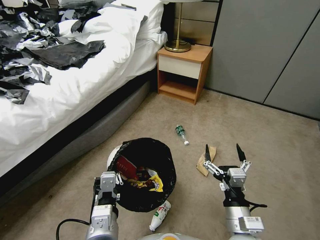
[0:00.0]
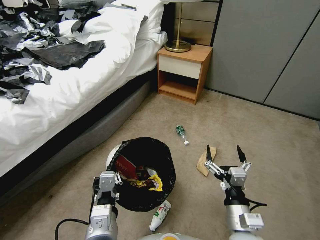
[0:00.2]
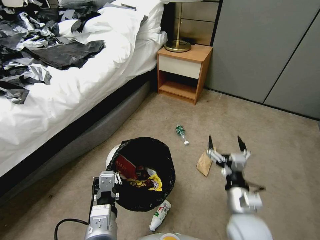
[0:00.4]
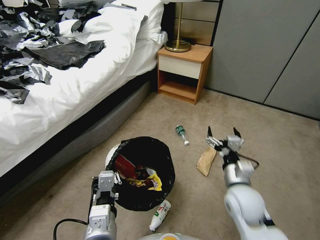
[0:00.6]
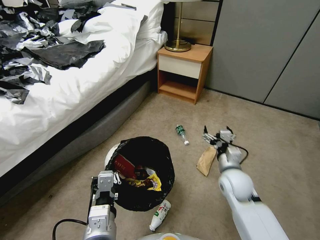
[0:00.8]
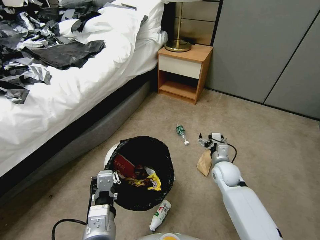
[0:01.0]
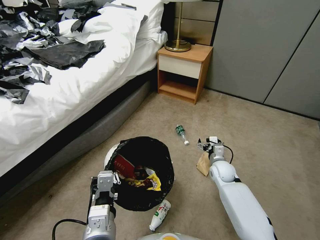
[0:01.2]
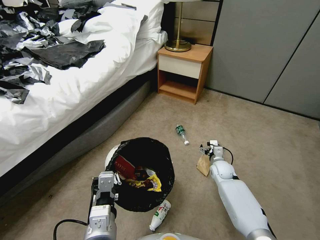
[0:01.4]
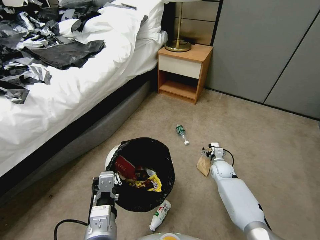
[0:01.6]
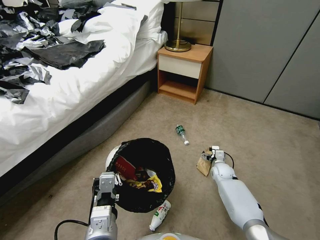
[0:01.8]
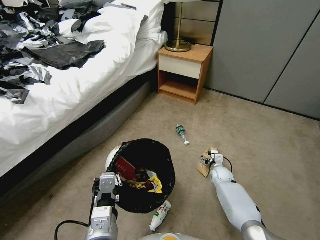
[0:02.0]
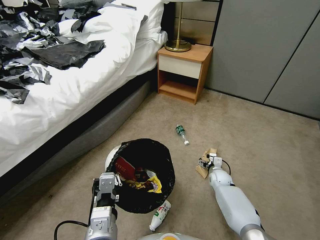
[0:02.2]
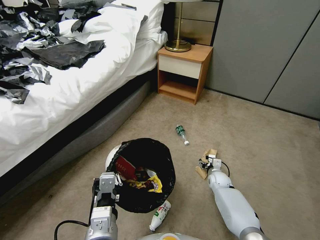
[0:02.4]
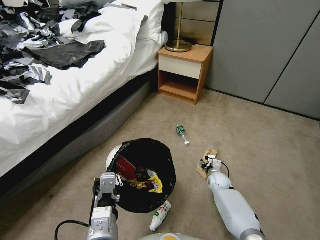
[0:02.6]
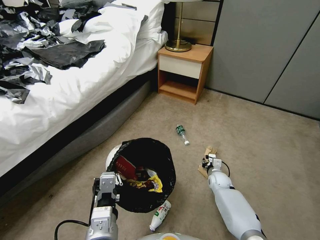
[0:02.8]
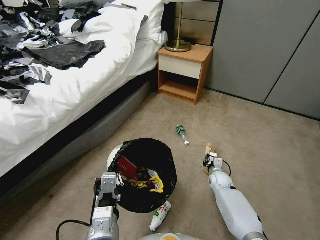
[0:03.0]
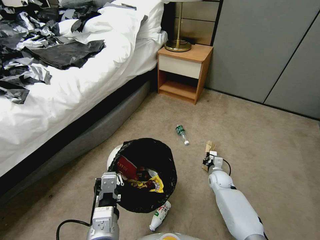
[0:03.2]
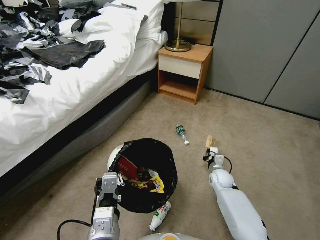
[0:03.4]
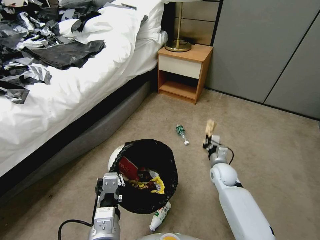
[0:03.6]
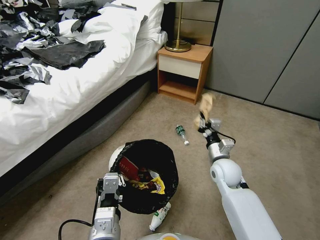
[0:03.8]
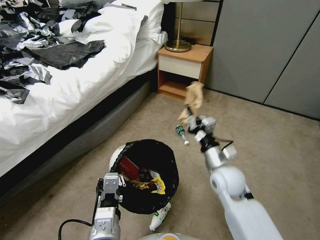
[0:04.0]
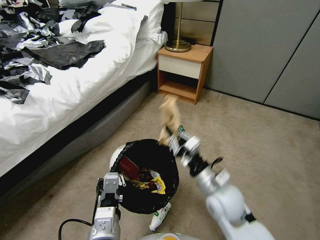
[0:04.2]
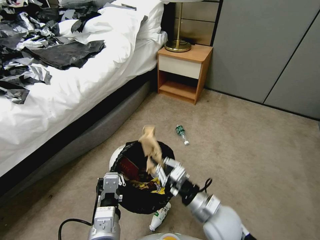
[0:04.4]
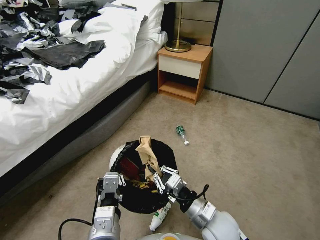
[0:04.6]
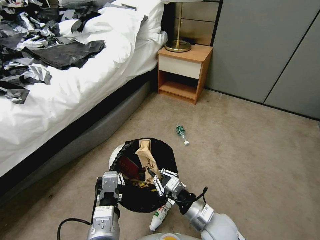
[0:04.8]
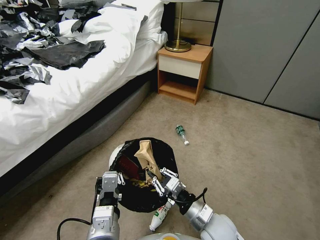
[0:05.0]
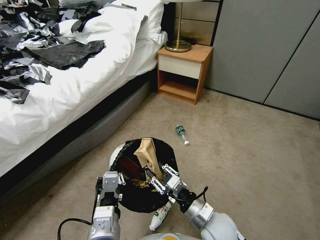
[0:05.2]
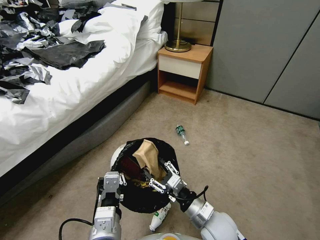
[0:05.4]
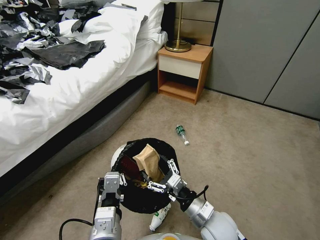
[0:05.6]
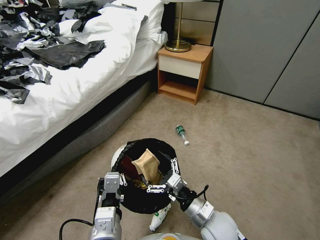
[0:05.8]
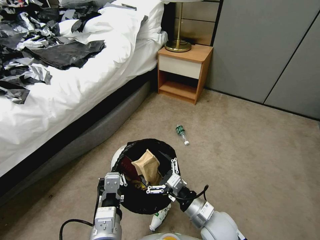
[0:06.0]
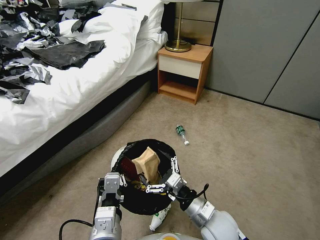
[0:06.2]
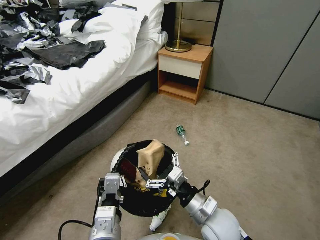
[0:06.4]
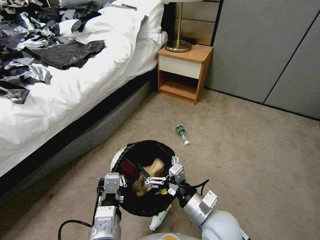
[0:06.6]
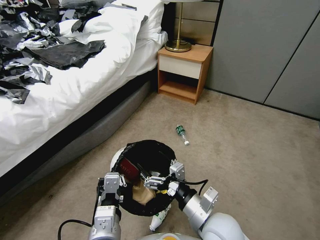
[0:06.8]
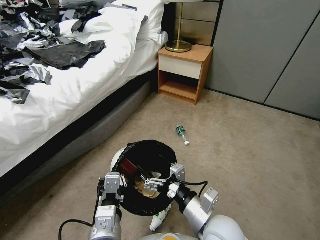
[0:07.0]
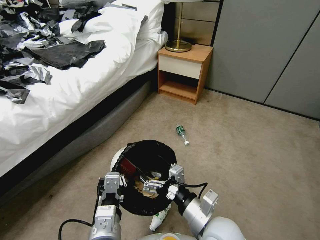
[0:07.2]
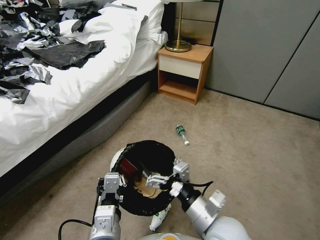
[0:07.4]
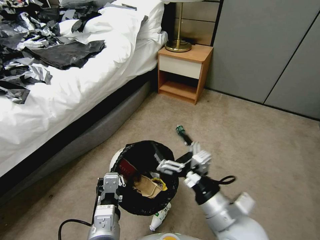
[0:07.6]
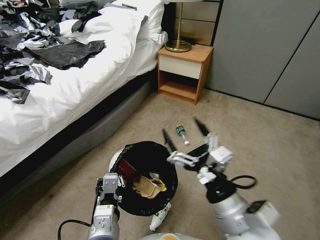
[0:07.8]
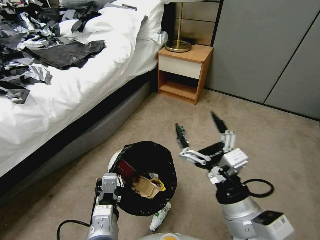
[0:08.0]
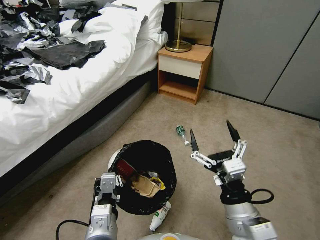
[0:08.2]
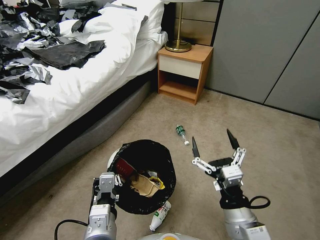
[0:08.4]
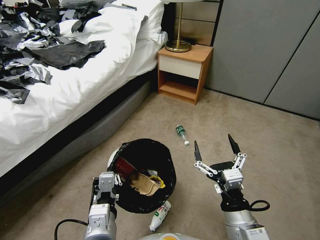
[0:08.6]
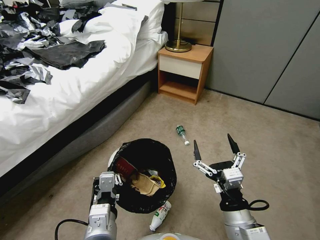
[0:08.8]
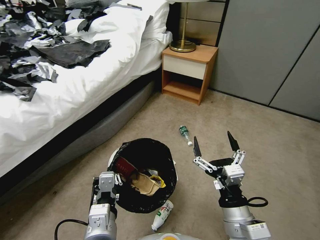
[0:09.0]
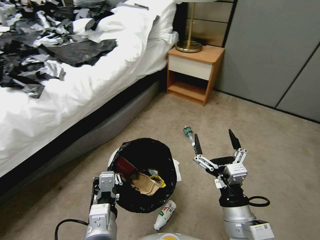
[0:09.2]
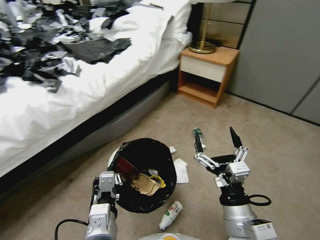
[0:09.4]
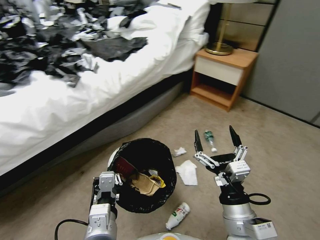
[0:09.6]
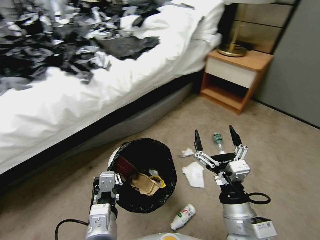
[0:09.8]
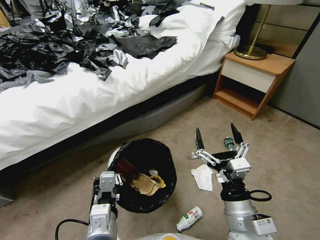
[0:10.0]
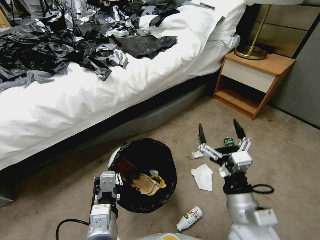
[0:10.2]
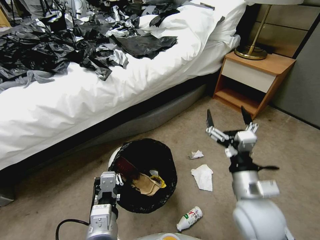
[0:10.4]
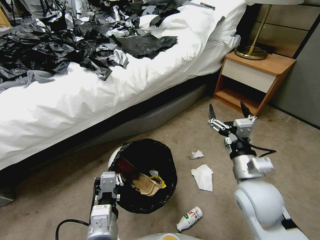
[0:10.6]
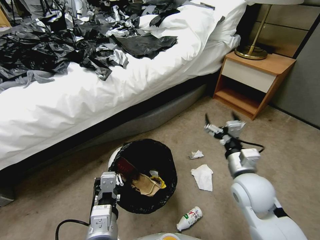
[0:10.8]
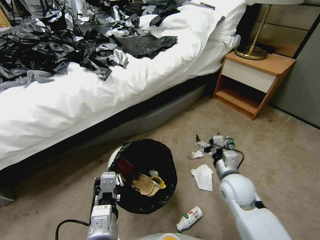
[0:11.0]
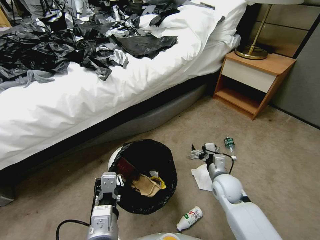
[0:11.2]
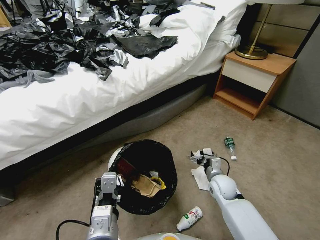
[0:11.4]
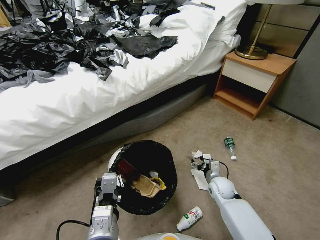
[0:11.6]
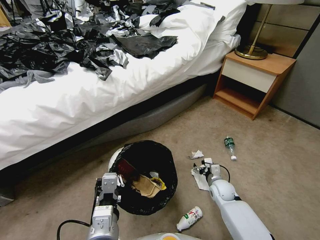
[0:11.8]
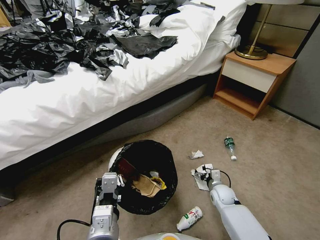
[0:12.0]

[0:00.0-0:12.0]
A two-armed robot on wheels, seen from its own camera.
Task of the whole recording: Pick up the trash bin, then pick up the garbage from the floor and place it into the trash bin.
0:00.0 to 0:01.6: The right gripper shifts about 35 cm forward and downward.
0:01.6 to 0:03.0: The right gripper closes its fingers.
0:03.0 to 0:04.4: The right gripper goes some 30 cm upward, backward and to the left.
0:04.4 to 0:06.0: The right gripper opens up.
0:06.0 to 0:07.6: The right gripper goes about 10 cm upward.
0:07.6 to 0:09.0: The right gripper moves roughly 5 cm.
0:09.0 to 0:10.4: The right gripper shifts roughly 5 cm forward.
0:10.4 to 0:12.0: The right gripper moves downward and forward, some 35 cm.

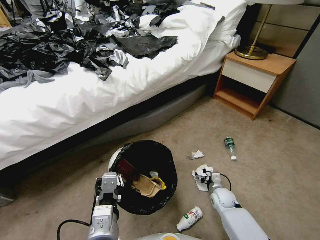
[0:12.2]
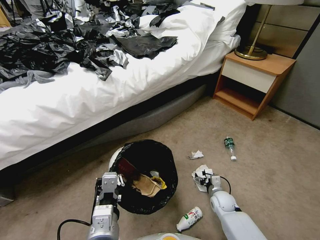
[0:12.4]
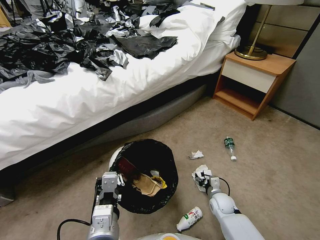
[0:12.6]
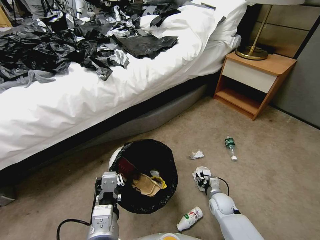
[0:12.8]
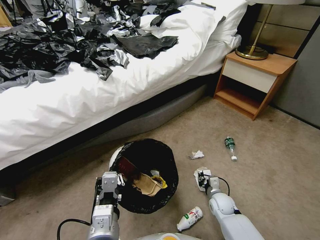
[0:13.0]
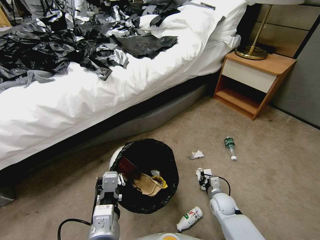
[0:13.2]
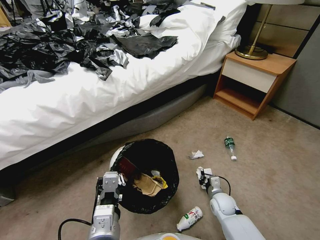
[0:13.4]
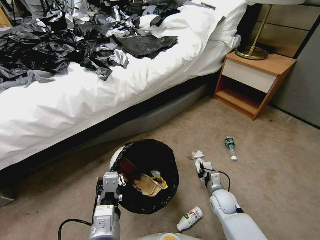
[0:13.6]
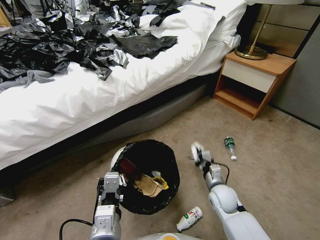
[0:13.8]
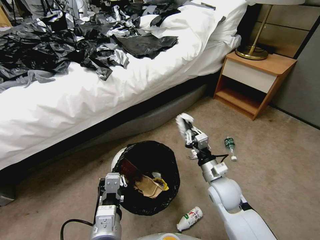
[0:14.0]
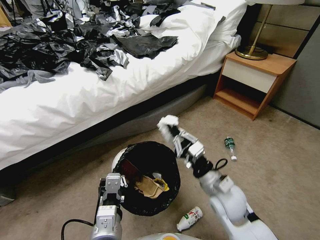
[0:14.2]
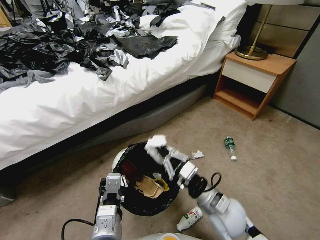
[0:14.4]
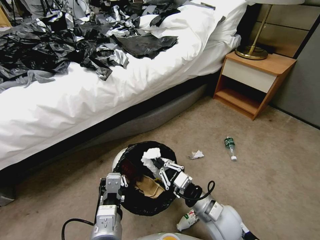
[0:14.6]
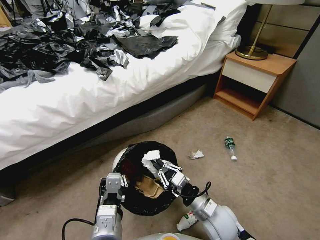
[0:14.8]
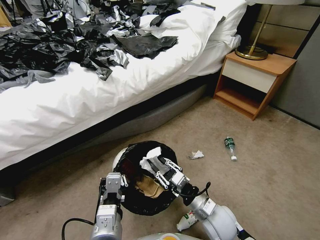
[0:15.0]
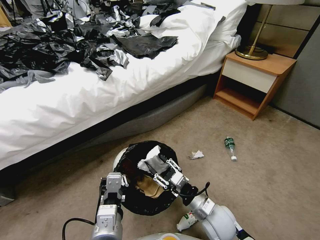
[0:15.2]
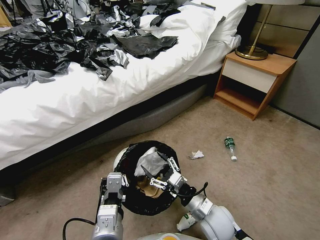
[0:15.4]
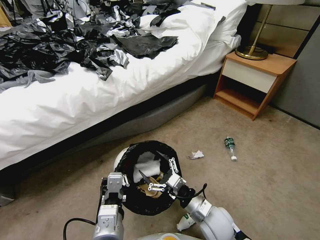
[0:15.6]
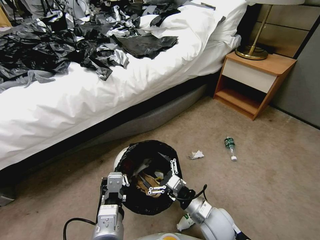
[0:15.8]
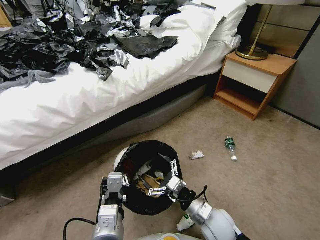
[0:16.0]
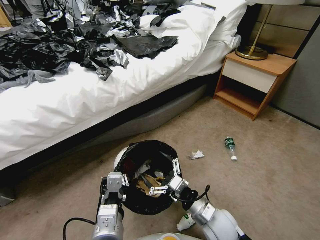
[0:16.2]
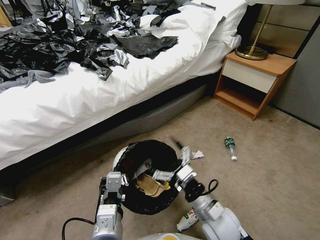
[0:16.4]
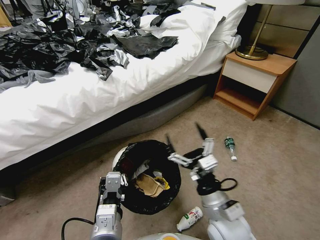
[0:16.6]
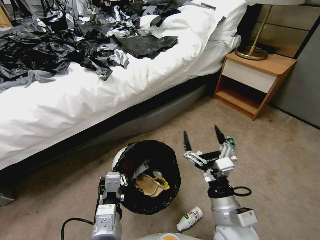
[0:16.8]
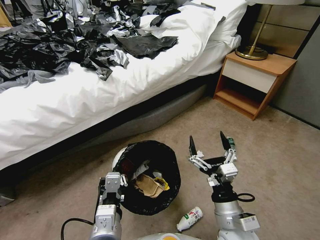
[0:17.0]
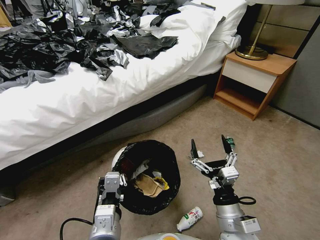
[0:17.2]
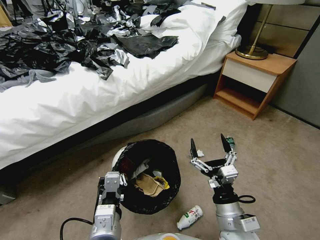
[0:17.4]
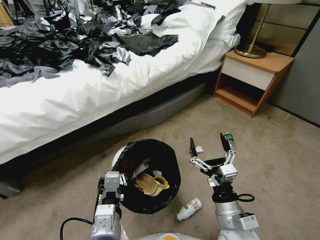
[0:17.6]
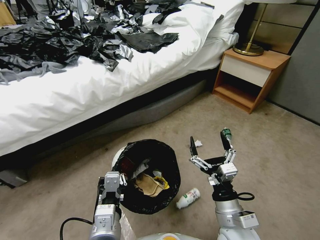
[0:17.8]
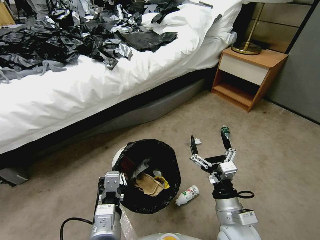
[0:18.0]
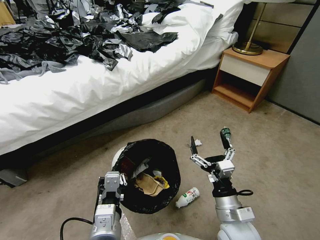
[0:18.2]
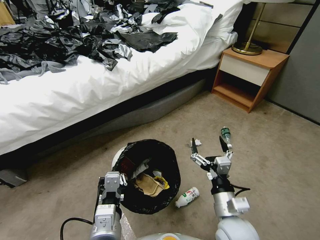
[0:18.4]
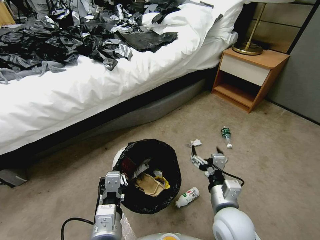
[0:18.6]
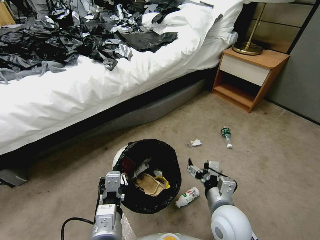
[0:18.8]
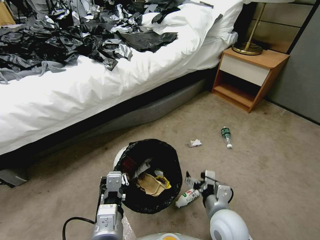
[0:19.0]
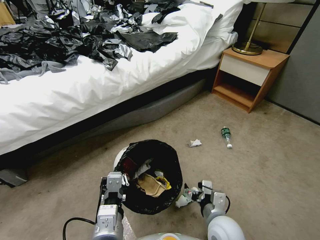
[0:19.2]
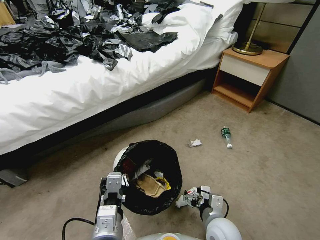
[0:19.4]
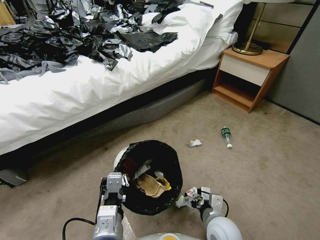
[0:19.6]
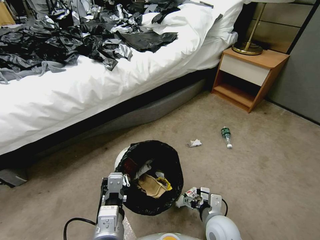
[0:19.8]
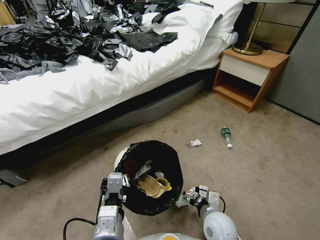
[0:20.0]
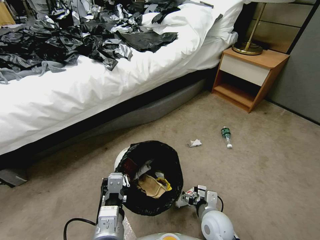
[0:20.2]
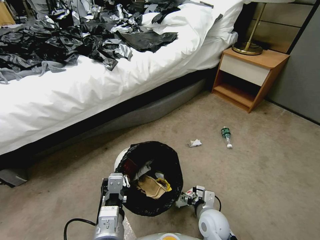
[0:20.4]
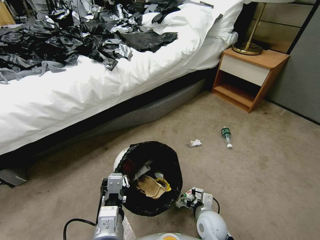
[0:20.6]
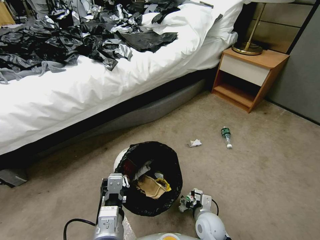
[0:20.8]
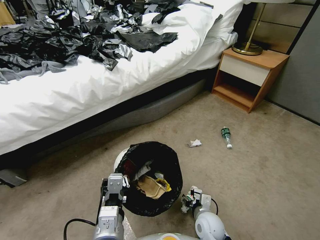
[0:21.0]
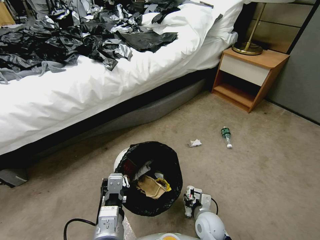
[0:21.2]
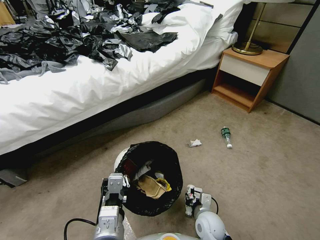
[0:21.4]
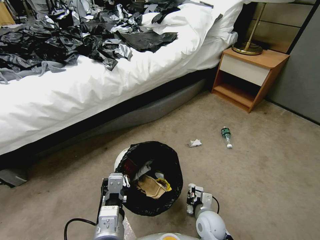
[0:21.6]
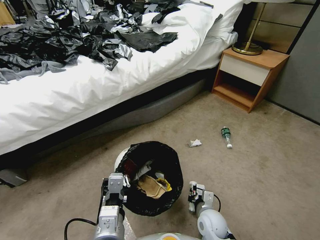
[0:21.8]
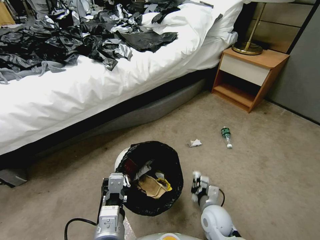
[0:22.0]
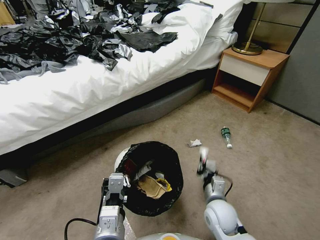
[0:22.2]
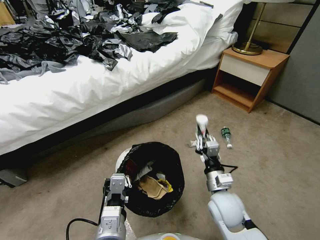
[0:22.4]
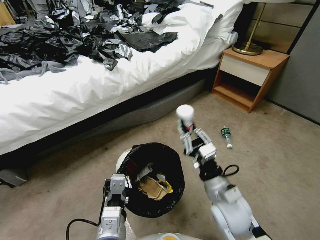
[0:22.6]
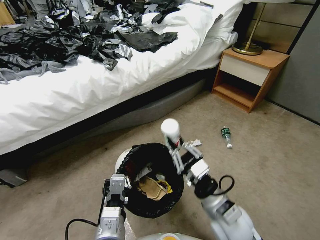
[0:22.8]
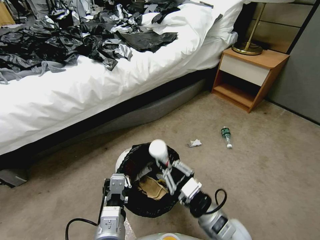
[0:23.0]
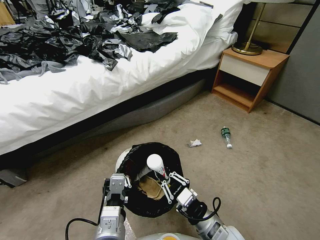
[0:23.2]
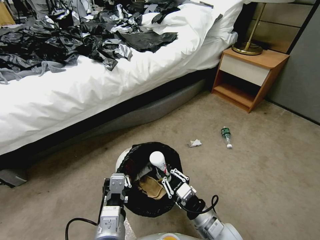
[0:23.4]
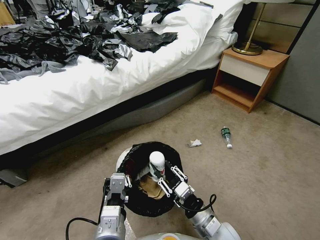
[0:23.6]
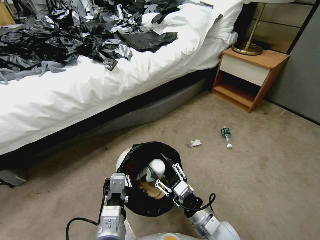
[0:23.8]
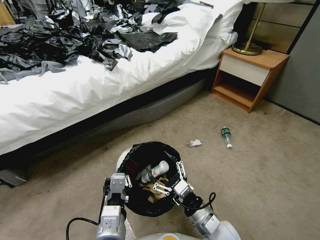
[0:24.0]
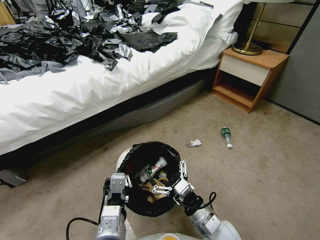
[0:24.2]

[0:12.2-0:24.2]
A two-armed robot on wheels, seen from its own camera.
Task of the whole recording: Pick up the trash bin, then pick up the garbage from the floor and place it into the trash bin.
0:12.2 to 0:13.8: The right gripper shifts roughly 10 cm upward, and closes.
0:13.8 to 0:15.2: The right gripper travels backward, to the left and upward by approximately 10 cm, and opens.
0:15.2 to 0:16.6: The right gripper moves upward, some 10 cm, and opens up.
0:18.2 to 0:19.8: The right gripper shifts about 5 cm downward.
0:19.8 to 0:21.2: The right gripper travels downward by about 10 cm, and closes.
0:21.2 to 0:22.6: The right gripper travels upward by roughly 20 cm, and closes.
0:22.6 to 0:24.2: The right gripper shifts about 10 cm downward and backward, and opens up.
